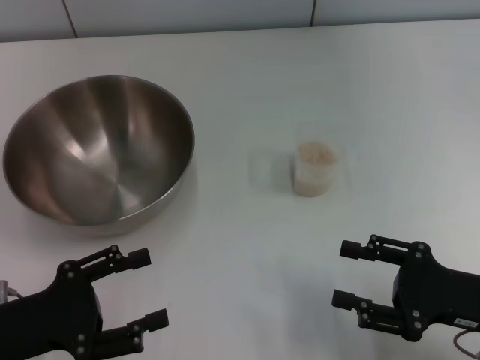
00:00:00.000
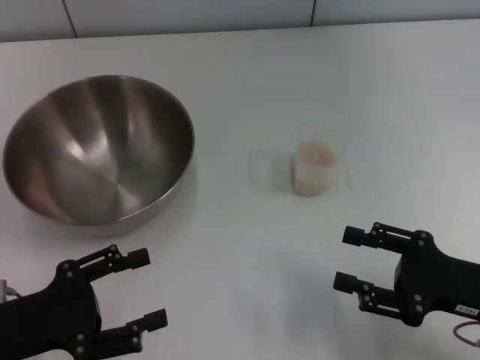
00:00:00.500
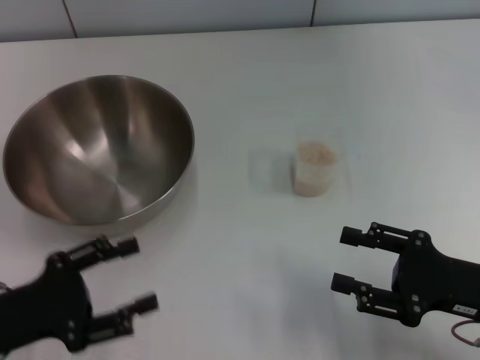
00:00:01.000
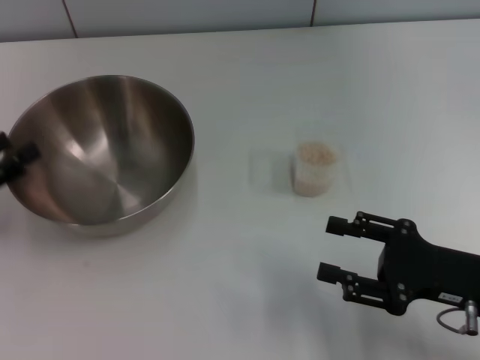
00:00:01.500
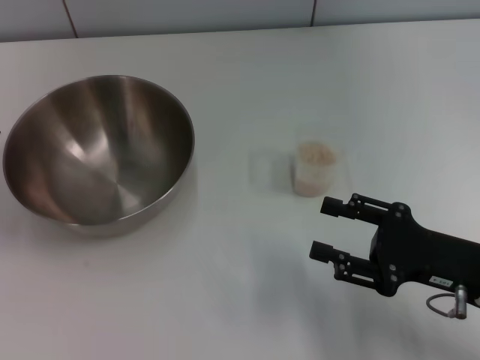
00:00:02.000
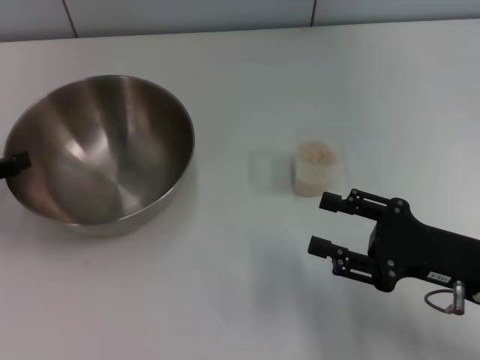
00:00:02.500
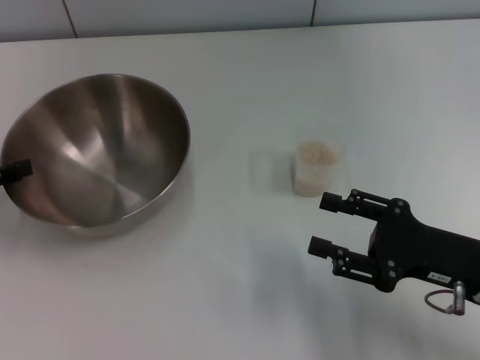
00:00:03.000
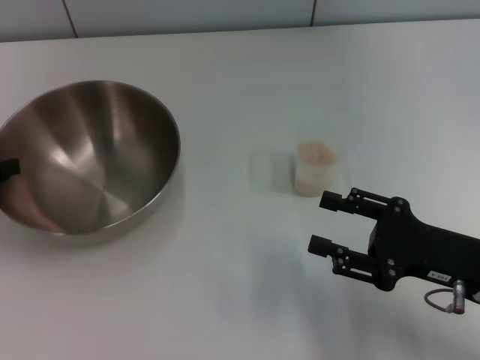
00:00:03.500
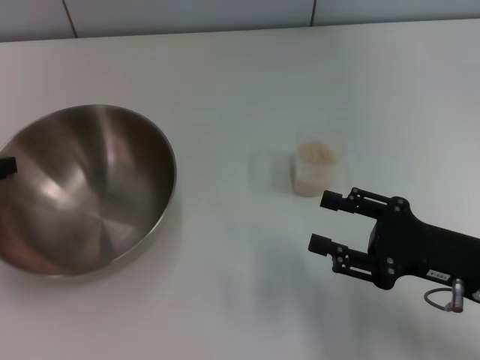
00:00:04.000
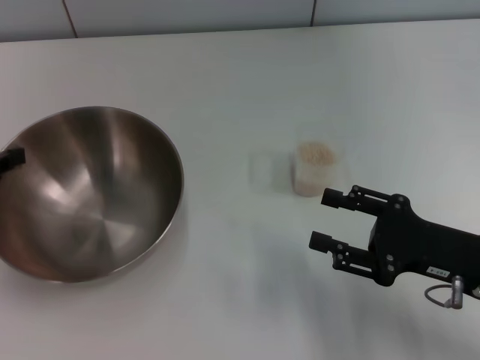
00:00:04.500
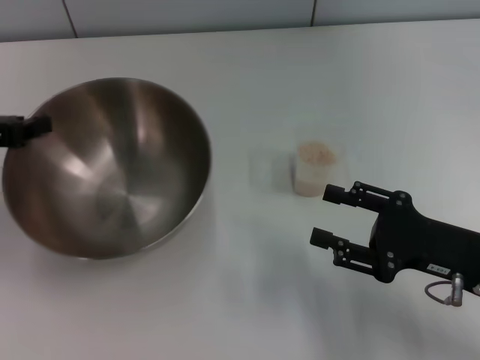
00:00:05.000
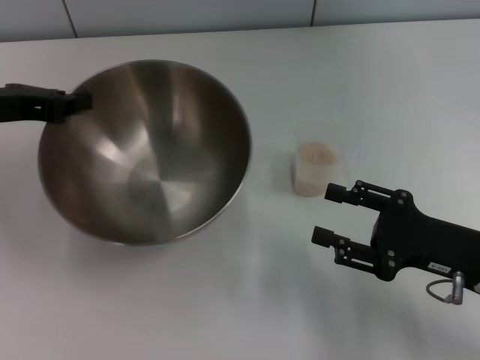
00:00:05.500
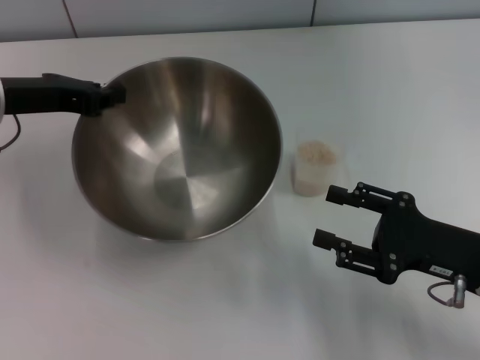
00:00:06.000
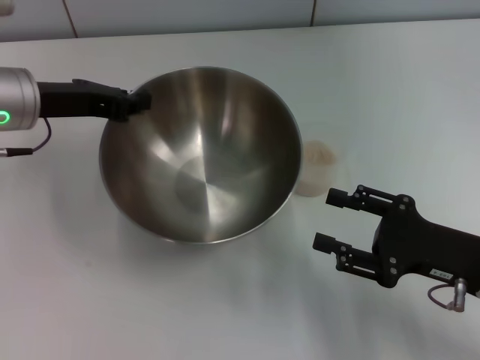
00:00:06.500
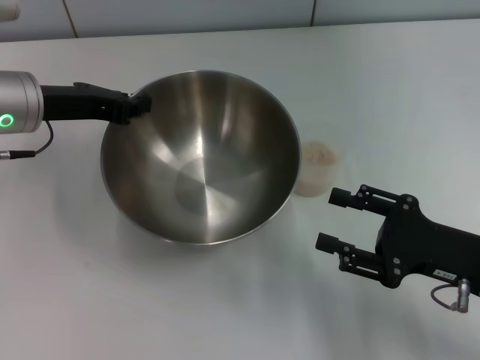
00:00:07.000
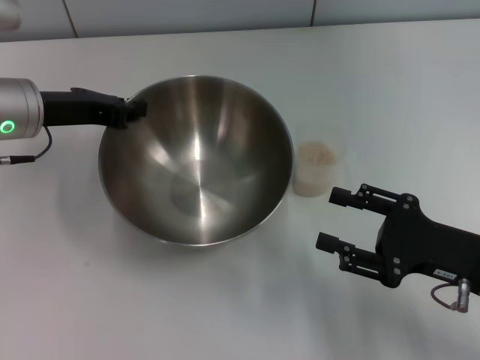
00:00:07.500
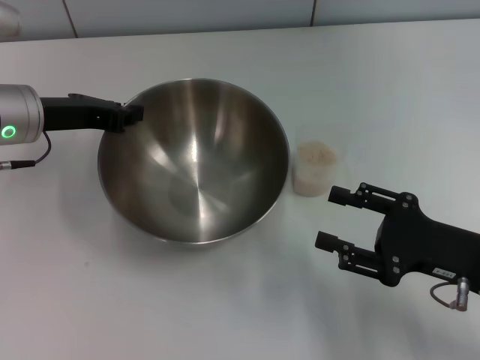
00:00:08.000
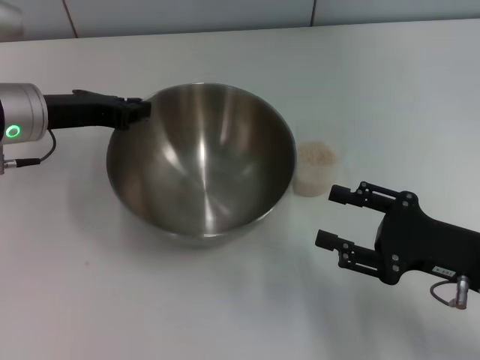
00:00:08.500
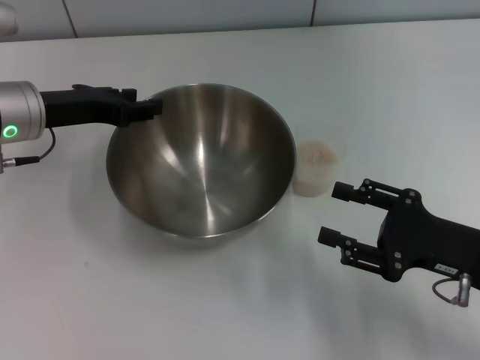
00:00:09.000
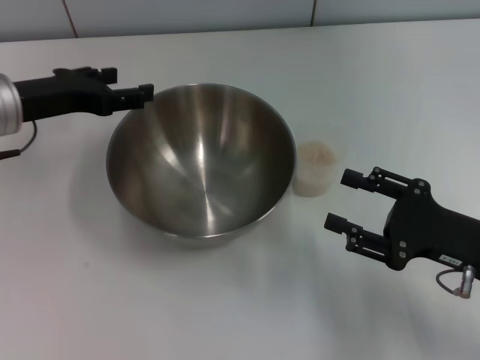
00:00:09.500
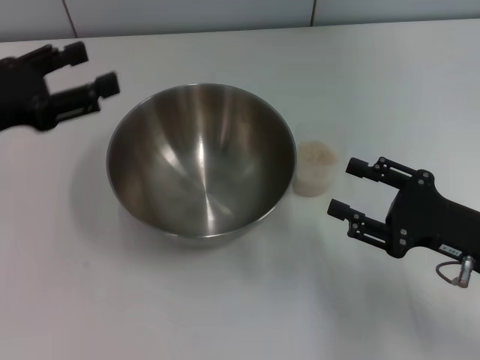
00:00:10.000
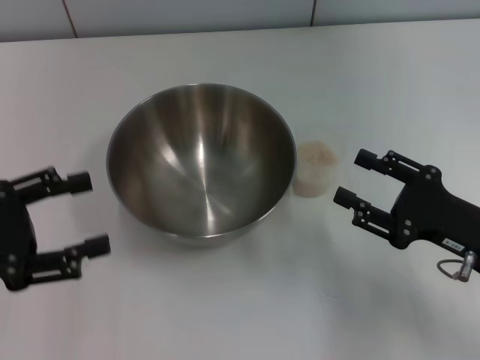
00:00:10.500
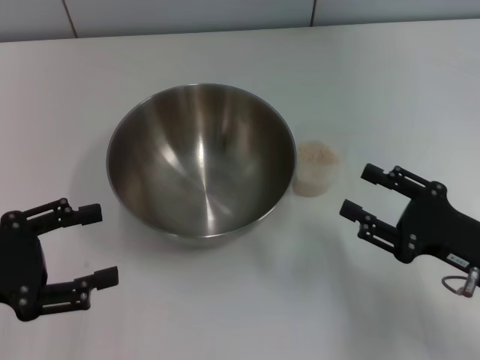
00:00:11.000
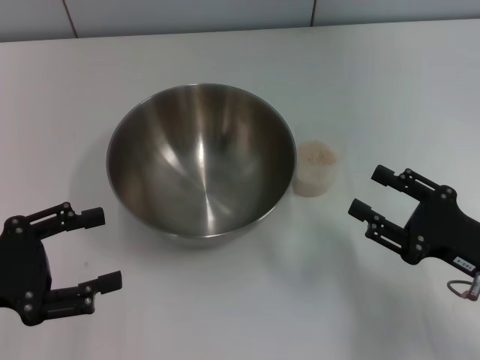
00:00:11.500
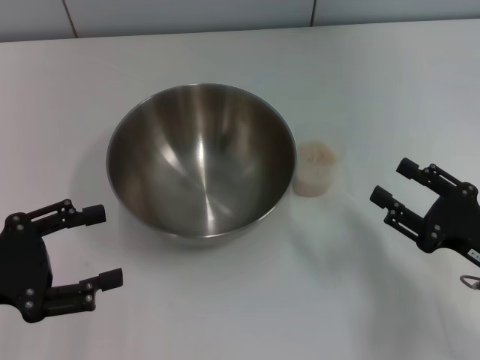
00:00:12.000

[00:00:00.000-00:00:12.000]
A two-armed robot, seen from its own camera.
Task of the whole recording: Place the bowl in the middle of the table with one hand and pour the rice from the grain cup into it with the other hand.
Step, 00:00:00.000 to 00:00:05.000: Pick up the bowl with the left gripper.
Step, 00:00:05.500 to 00:00:09.500: Place the bowl in the center of view with the left gripper.
00:00:00.000 to 00:00:02.000: The left gripper is displaced to the left, forward and upward by approximately 15 cm.
00:00:02.000 to 00:00:04.000: The left gripper closes its fingers.
00:00:04.000 to 00:00:06.000: The left gripper heads to the right, forward and upward, covering approximately 15 cm.
00:00:06.000 to 00:00:08.000: The grippers move only a little.
00:00:08.000 to 00:00:10.000: The left gripper is displaced backward and to the left by roughly 10 cm, and opens.
00:00:10.000 to 00:00:12.000: The left gripper travels backward by roughly 10 cm.

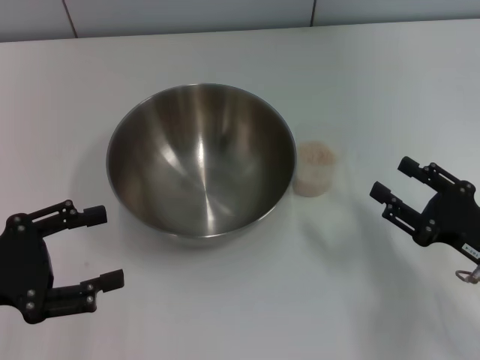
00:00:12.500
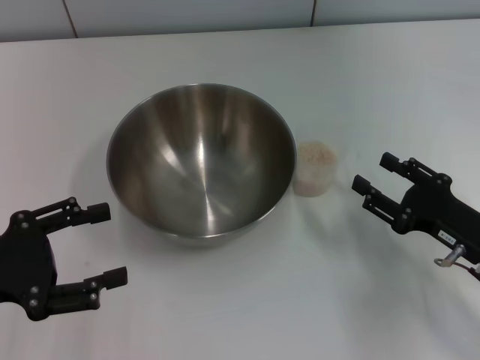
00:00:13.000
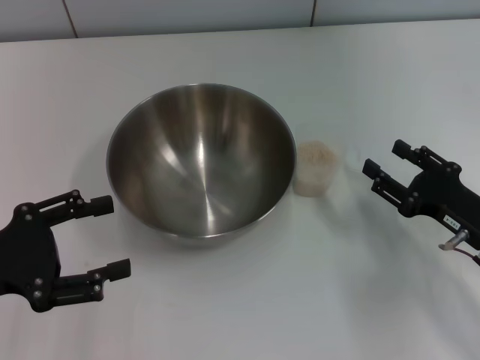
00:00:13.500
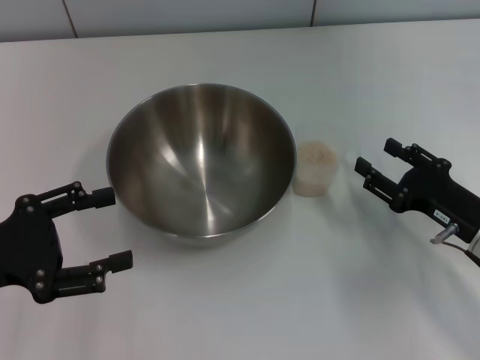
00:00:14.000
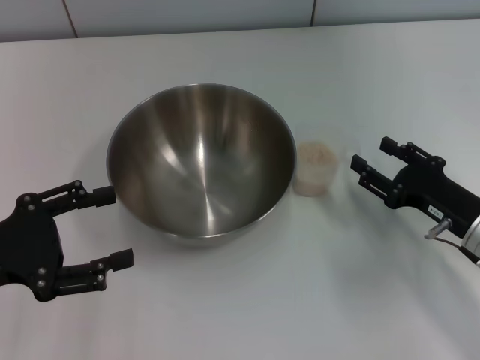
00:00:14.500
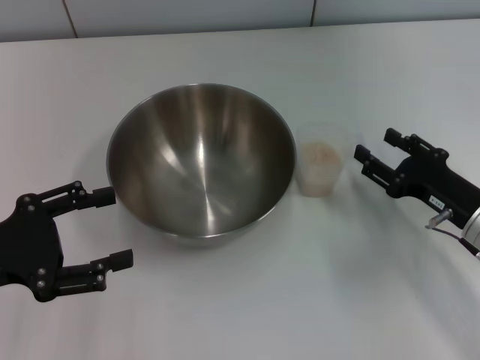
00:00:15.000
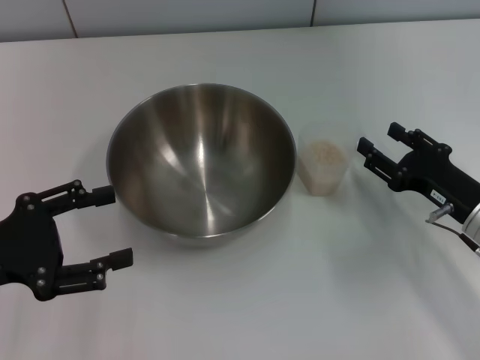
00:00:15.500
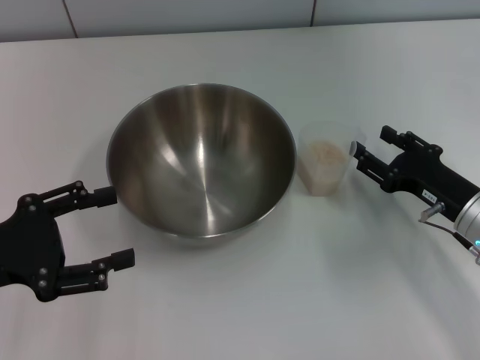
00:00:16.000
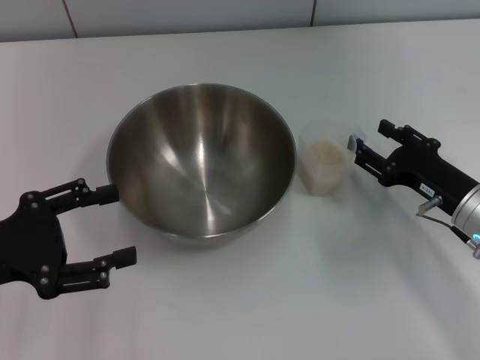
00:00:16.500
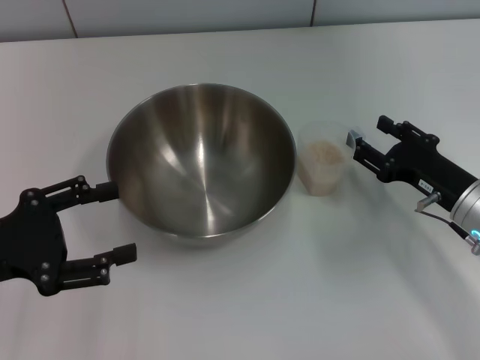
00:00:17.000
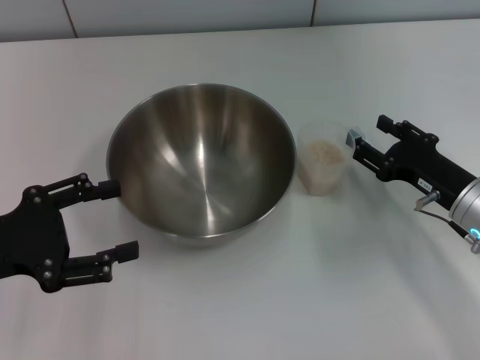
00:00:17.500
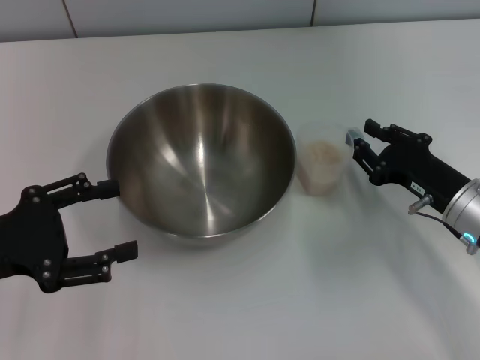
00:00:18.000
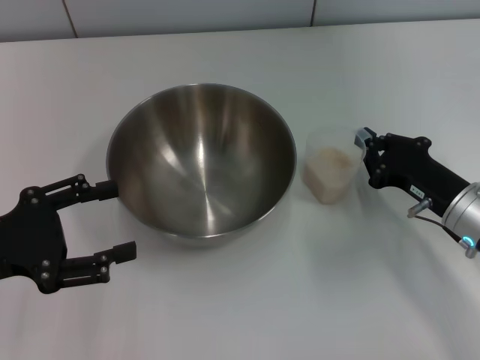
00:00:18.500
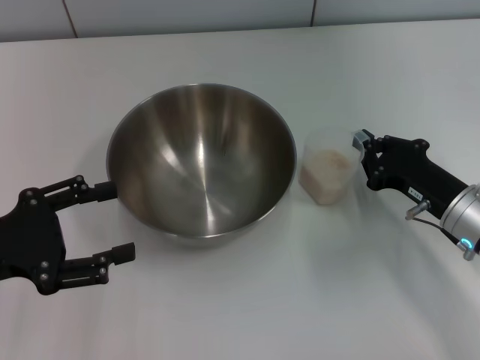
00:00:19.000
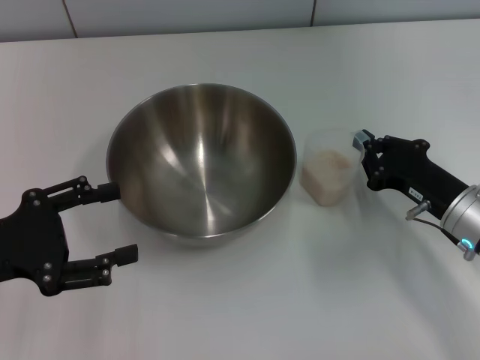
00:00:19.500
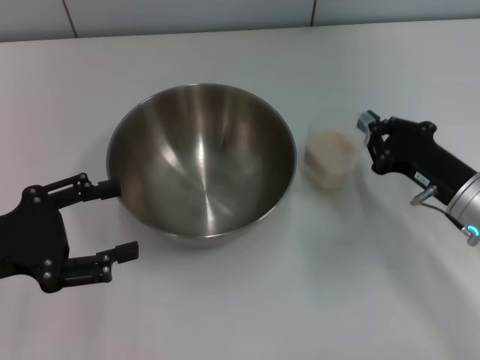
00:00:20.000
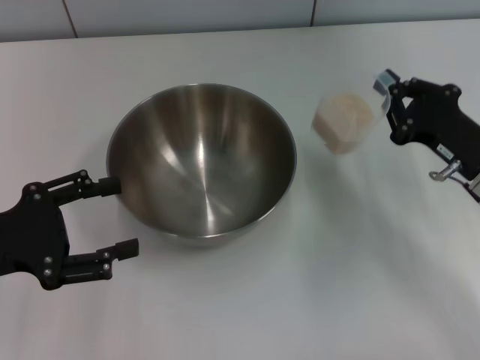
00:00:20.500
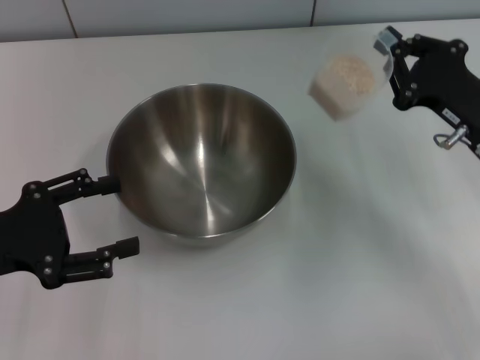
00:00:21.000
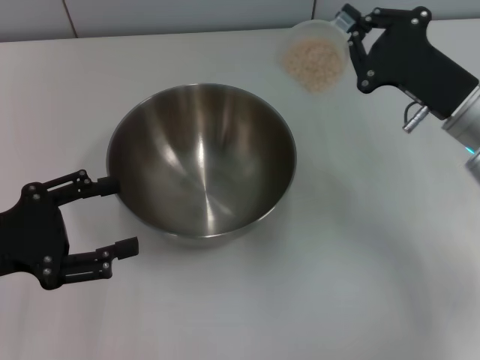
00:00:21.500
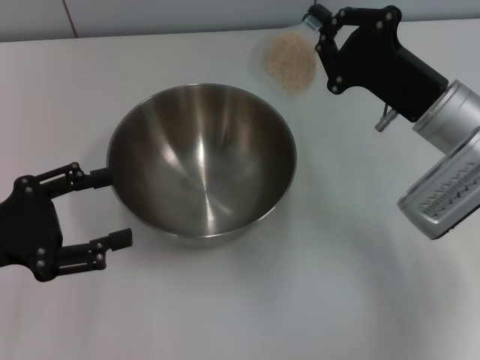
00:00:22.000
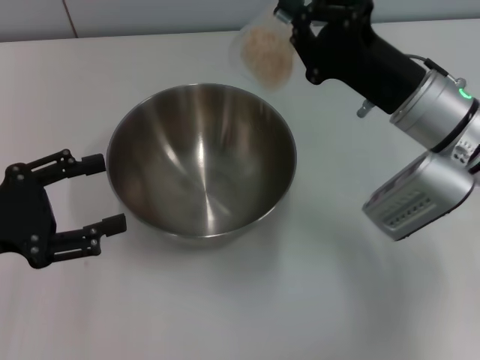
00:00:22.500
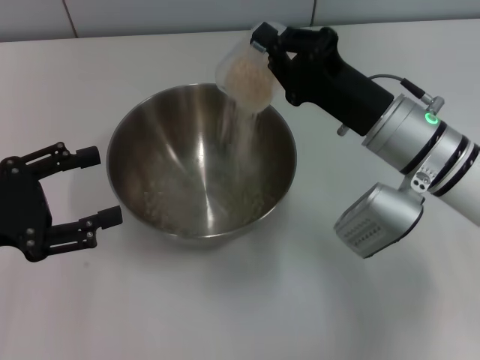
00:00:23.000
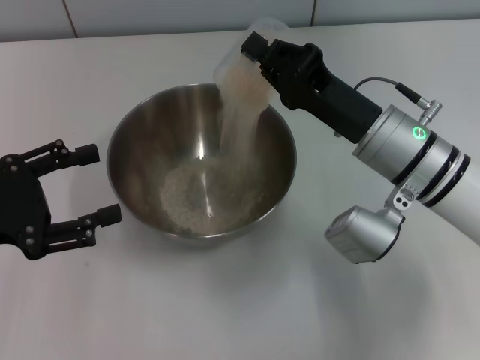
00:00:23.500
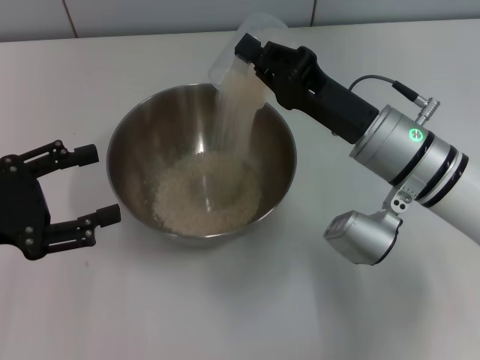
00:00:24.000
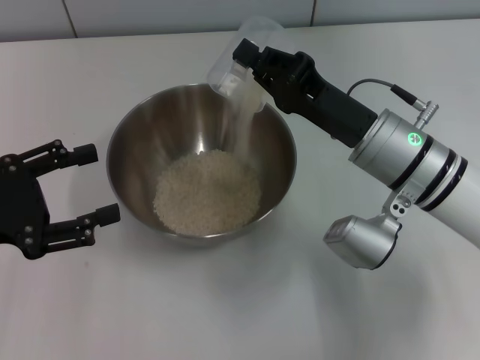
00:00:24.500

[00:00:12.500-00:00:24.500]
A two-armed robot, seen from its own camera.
Task of the whole recording: Place the bowl in the middle of the table with one hand and pour the rice from the grain cup into it with the other hand.
Step, 00:00:12.500 to 00:00:20.500: Pick up the cup with rice in it with the right gripper.
00:00:12.500 to 00:00:14.500: The right gripper travels forward by about 5 cm.
00:00:14.500 to 00:00:16.500: The grippers stay close to where they were, moving slightly.
00:00:16.500 to 00:00:18.500: The right gripper closes.
00:00:18.500 to 00:00:20.500: There are only small adjustments of the grippers.
00:00:20.500 to 00:00:22.500: The right gripper moves to the left and upward, roughly 10 cm.

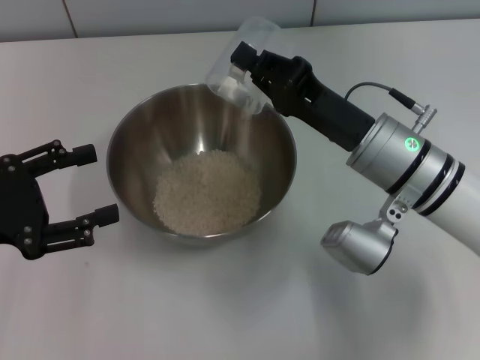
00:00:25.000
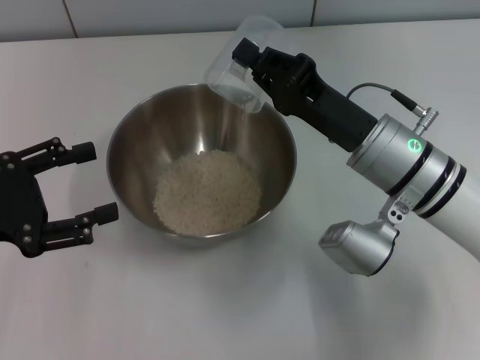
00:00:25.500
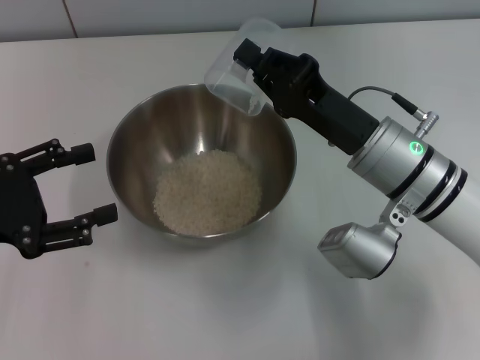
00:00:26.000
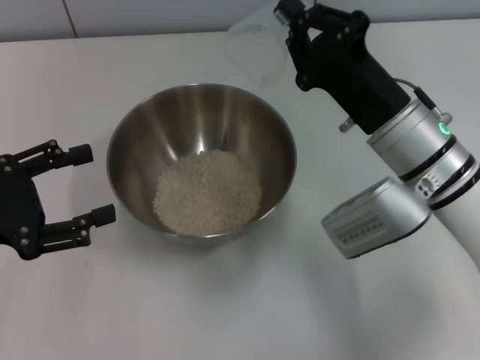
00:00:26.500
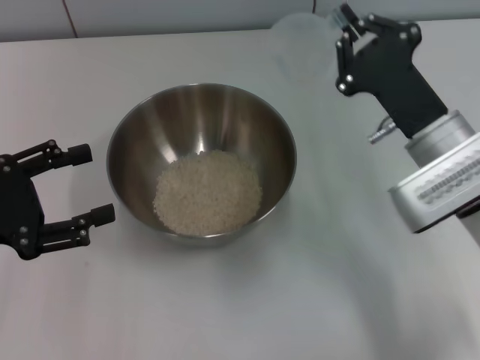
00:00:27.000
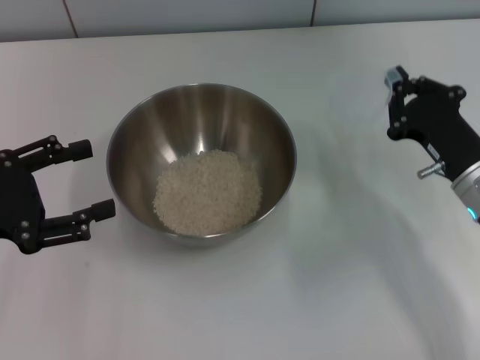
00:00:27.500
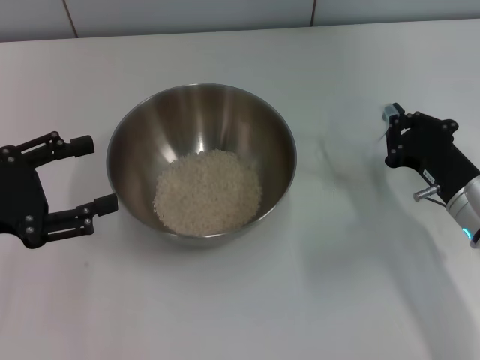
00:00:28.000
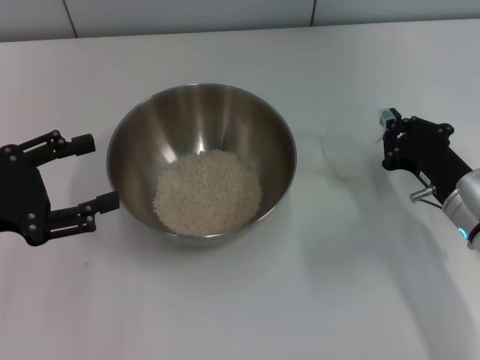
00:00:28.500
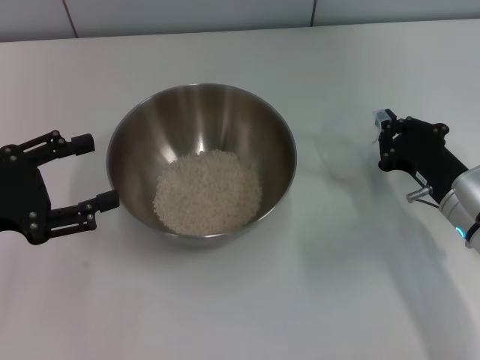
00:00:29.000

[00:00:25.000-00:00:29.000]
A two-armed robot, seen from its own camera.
Task of the whole recording: Place the bowl in the middle of the table with one hand and pour the rice from the grain cup into it with the other hand.
00:00:27.000 to 00:00:29.000: The right gripper heads downward and to the right, covering about 10 cm.
